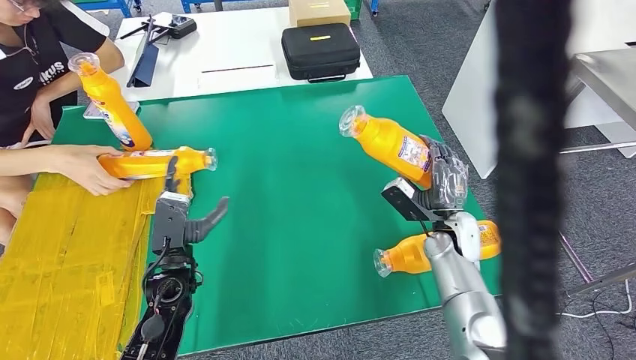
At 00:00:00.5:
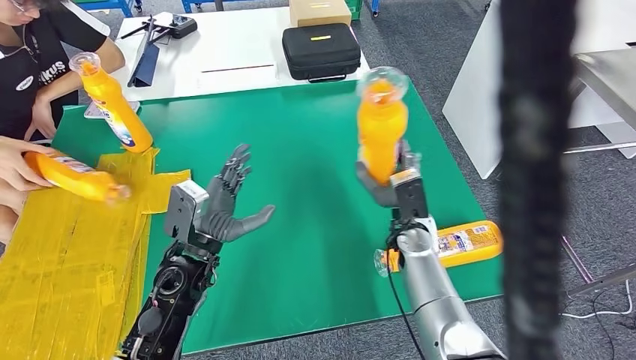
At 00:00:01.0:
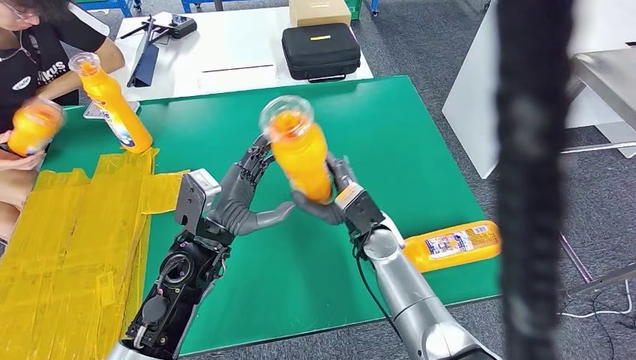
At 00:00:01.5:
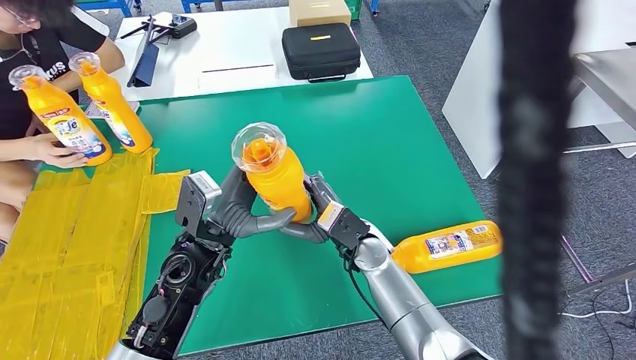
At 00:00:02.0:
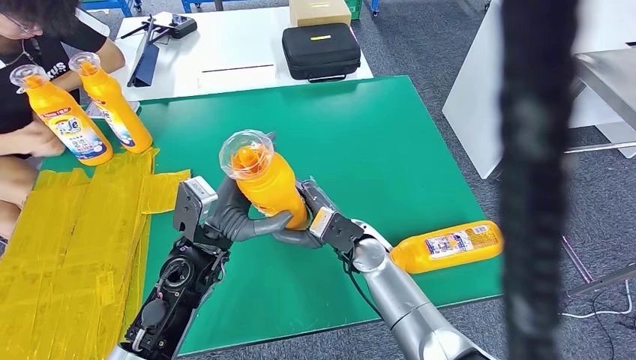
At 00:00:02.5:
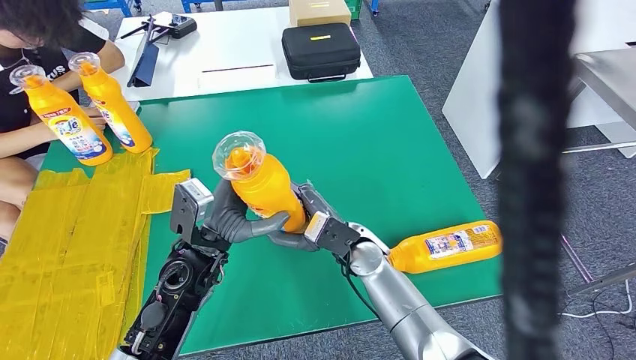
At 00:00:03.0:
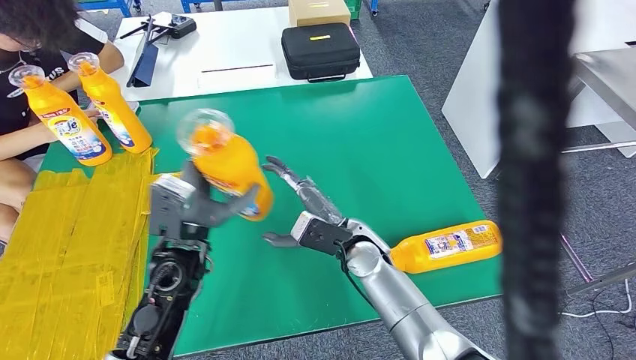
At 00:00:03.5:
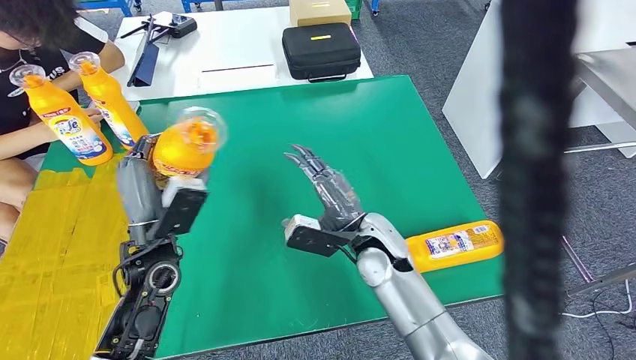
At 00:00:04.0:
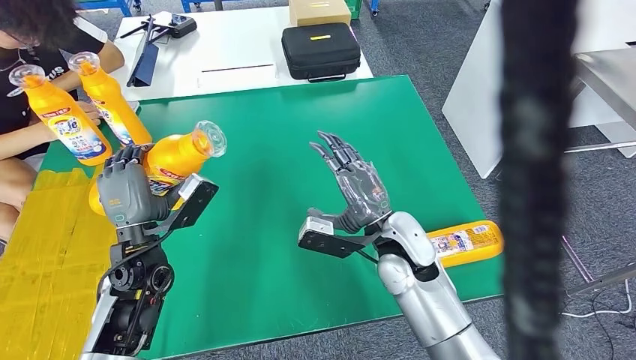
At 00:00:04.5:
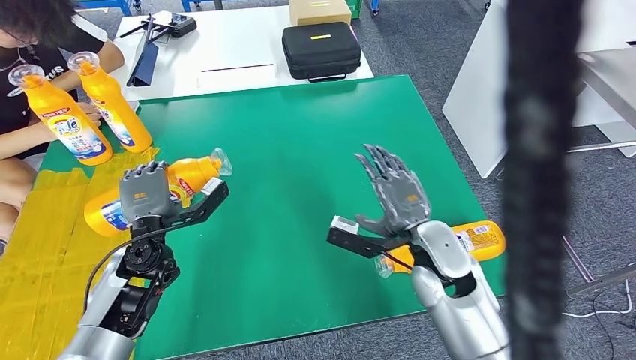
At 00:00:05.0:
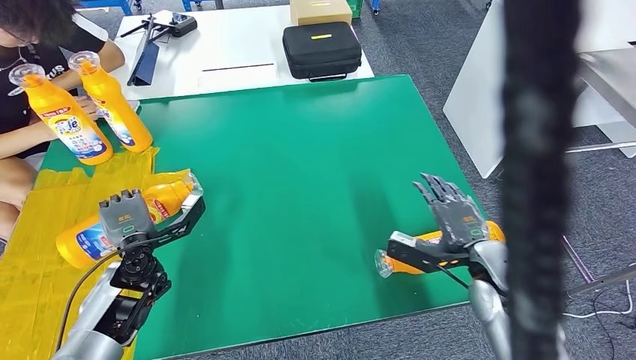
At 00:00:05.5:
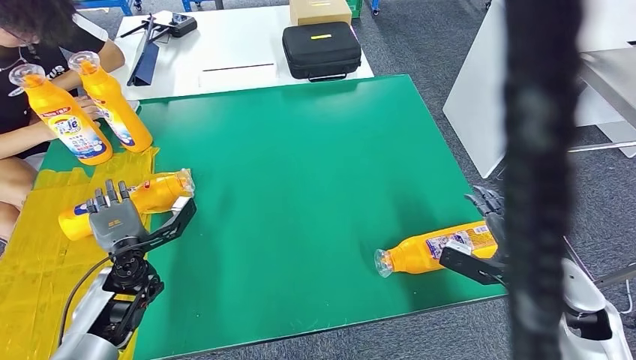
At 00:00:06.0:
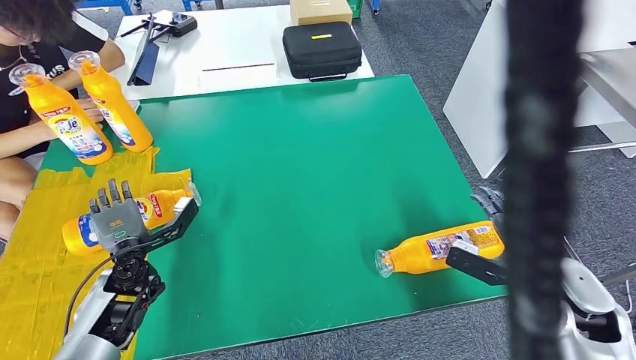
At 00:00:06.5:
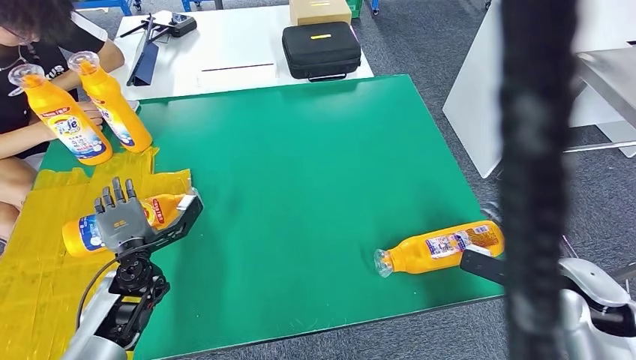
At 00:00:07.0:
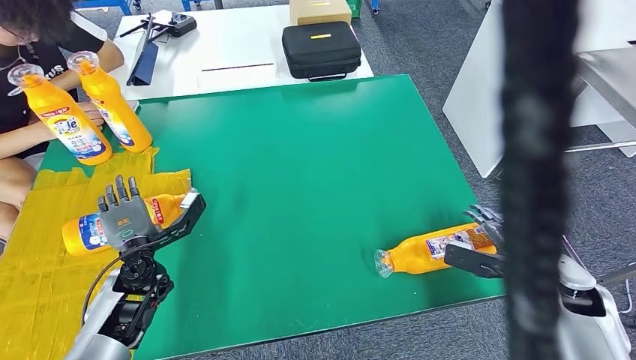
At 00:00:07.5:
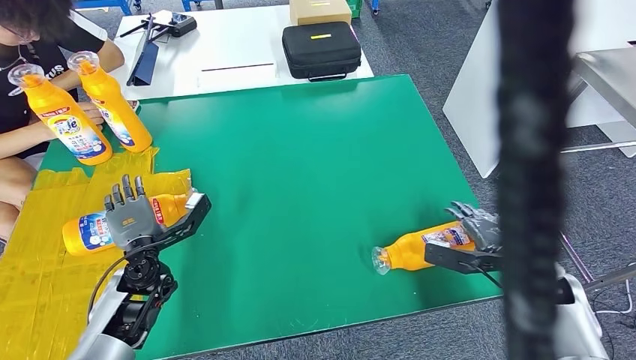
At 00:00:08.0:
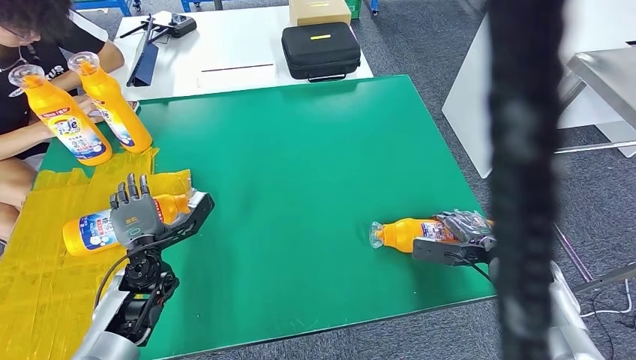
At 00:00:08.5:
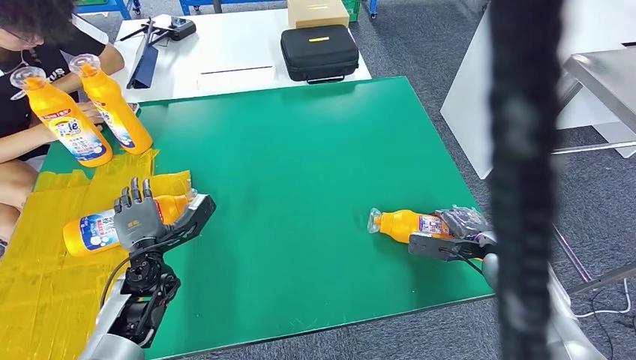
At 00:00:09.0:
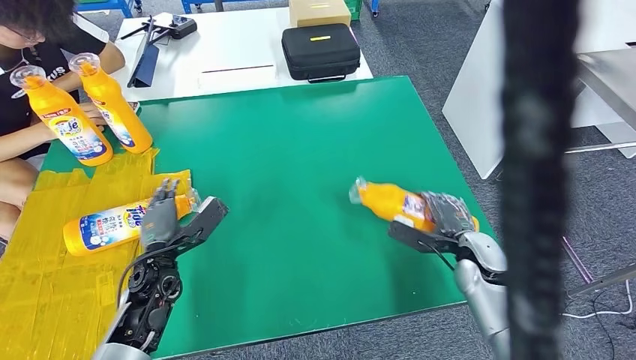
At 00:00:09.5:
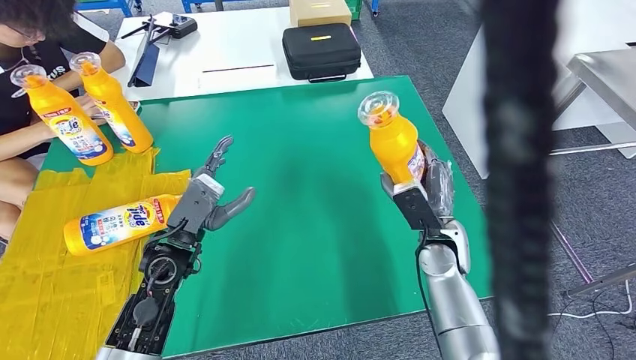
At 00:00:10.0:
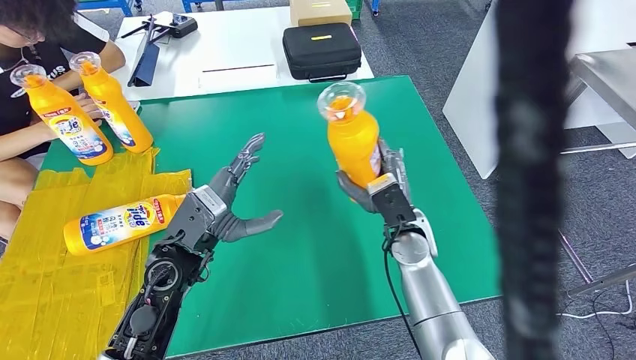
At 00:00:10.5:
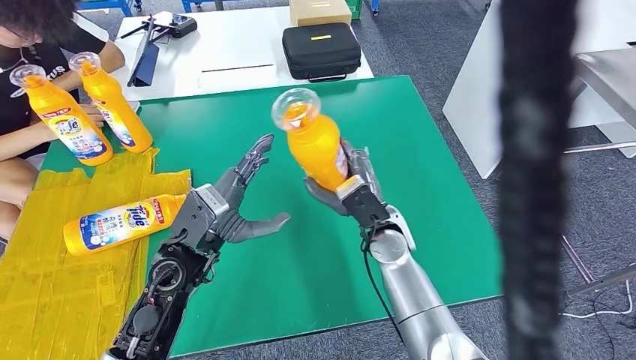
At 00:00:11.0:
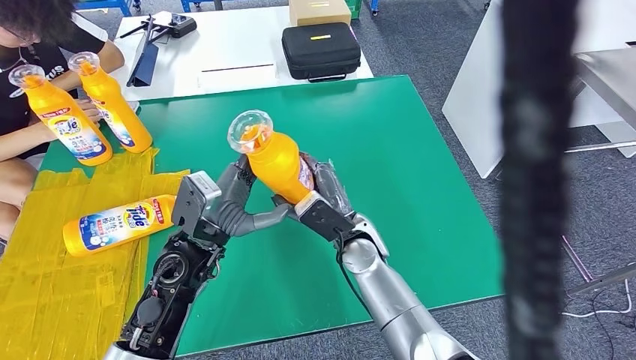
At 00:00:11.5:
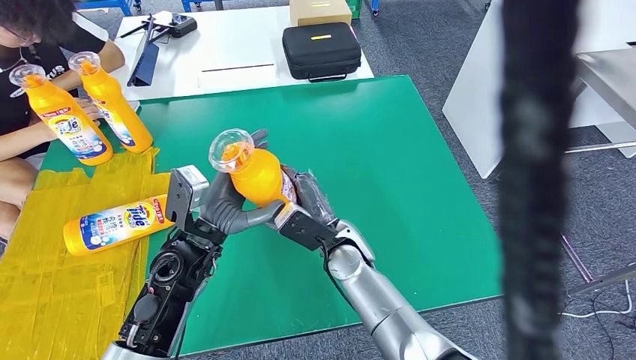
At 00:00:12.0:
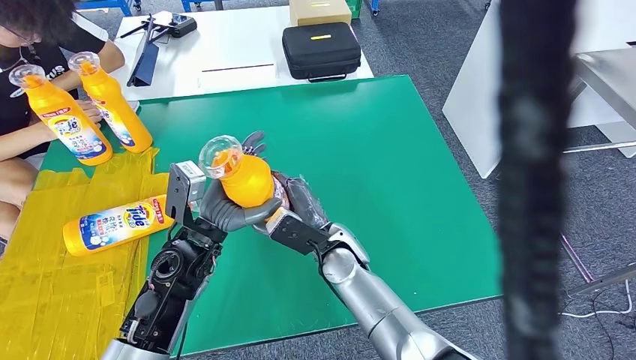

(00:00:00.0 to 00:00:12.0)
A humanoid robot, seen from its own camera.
Step, 00:00:01.5 - 00:00:08.0: Flip the bottle to face forward.
Step, 00:00:08.5 - 00:00:11.0: Pick up the bottle from the table.
00:00:10.0 - 00:00:12.0: The right hand moves to the left, approximately 10 cm.

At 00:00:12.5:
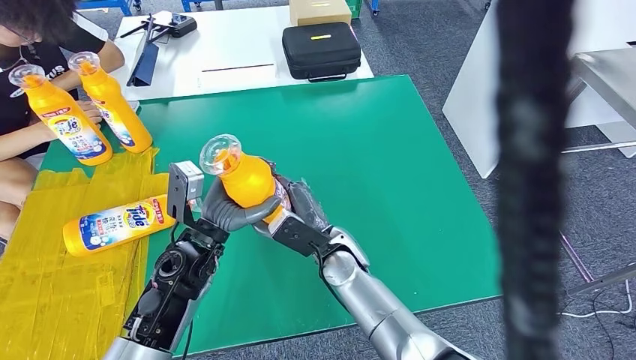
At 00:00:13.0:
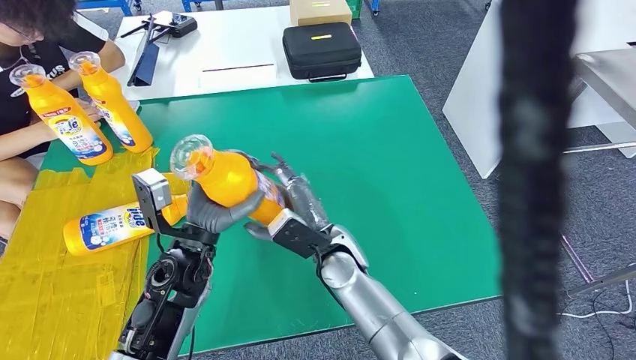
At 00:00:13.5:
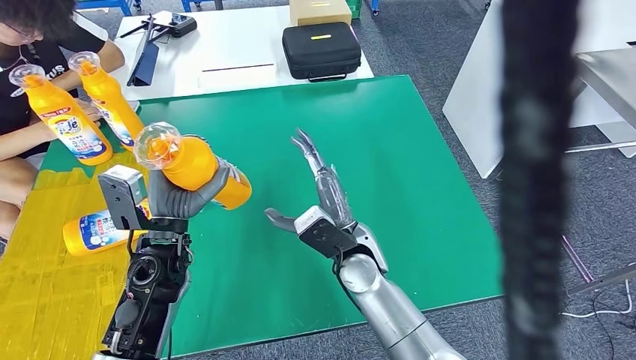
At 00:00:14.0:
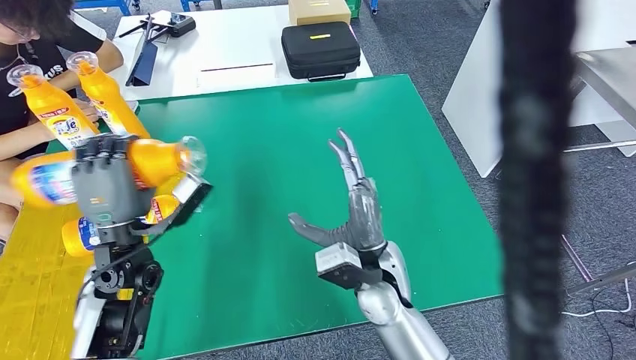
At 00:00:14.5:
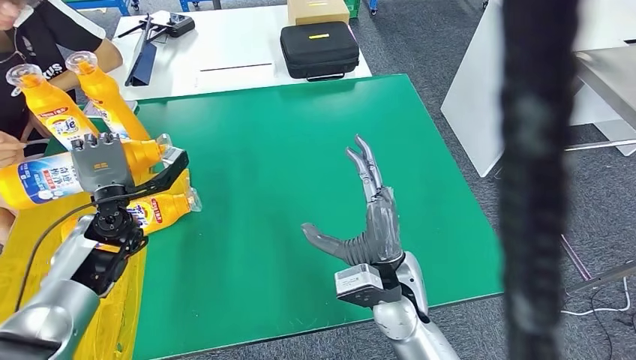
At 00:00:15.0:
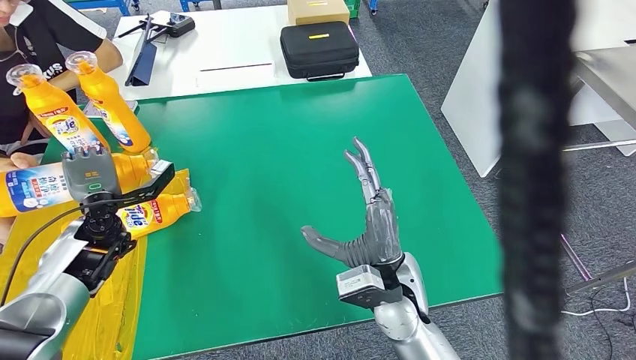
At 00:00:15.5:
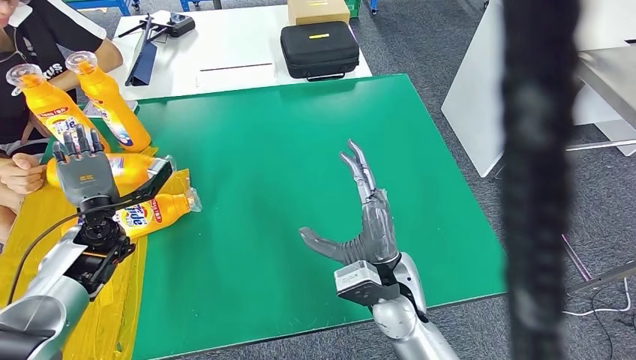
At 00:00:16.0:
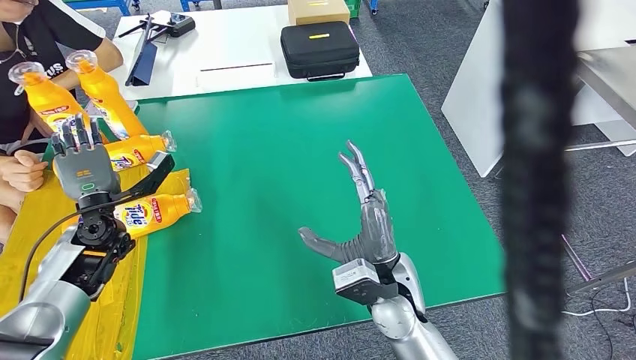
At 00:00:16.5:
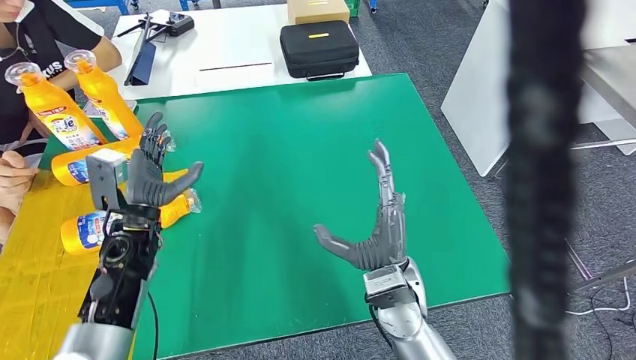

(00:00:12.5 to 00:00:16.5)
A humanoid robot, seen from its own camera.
Step, 00:00:12.5 - 00:00:16.5: Flip the bottle to face forward.
